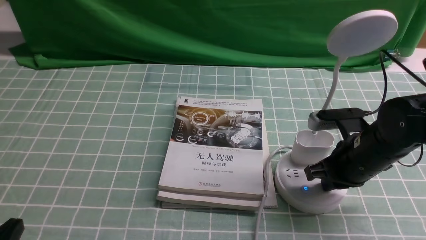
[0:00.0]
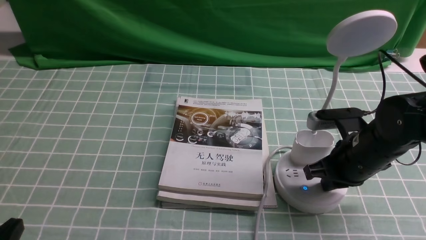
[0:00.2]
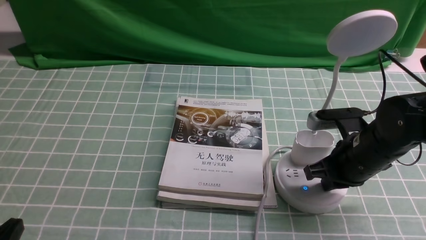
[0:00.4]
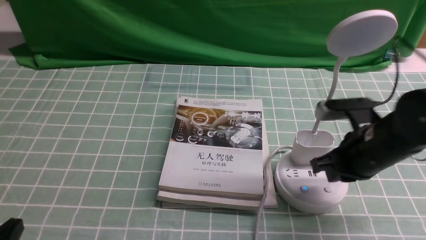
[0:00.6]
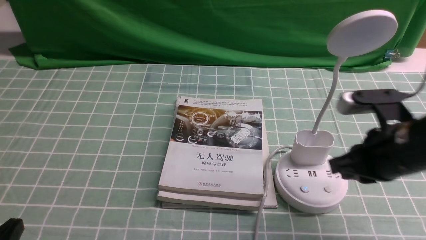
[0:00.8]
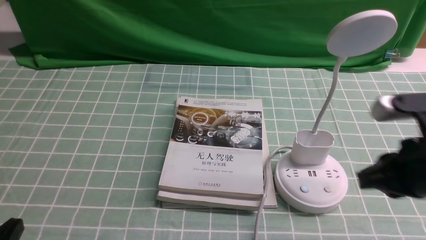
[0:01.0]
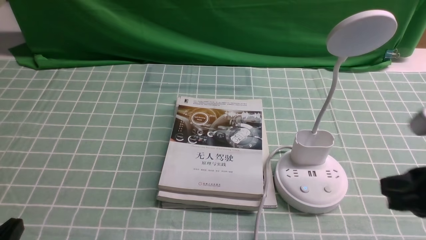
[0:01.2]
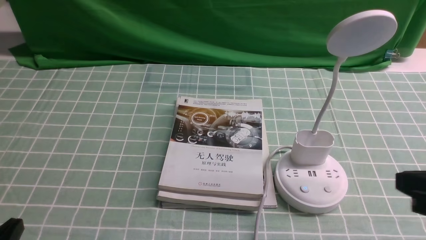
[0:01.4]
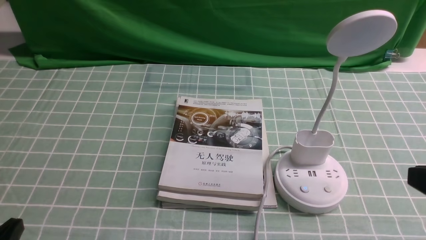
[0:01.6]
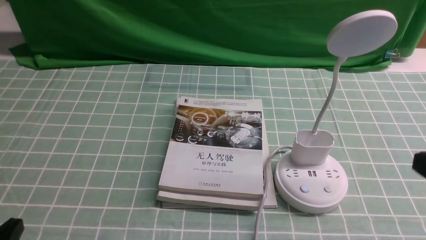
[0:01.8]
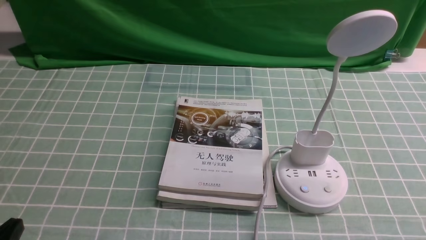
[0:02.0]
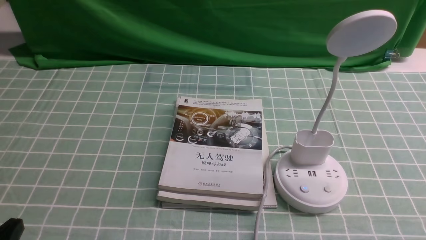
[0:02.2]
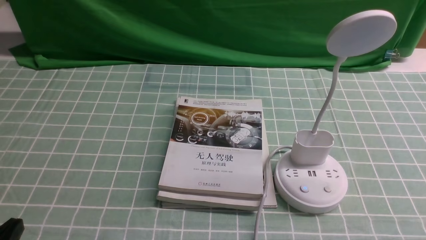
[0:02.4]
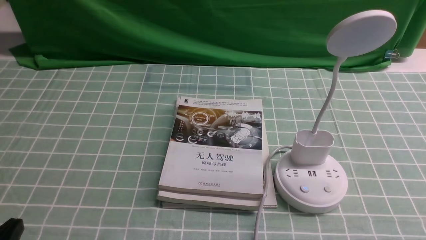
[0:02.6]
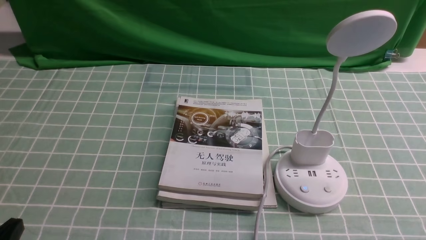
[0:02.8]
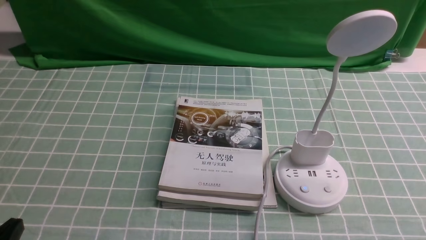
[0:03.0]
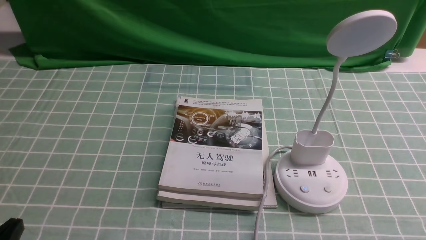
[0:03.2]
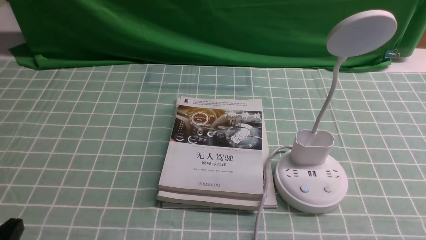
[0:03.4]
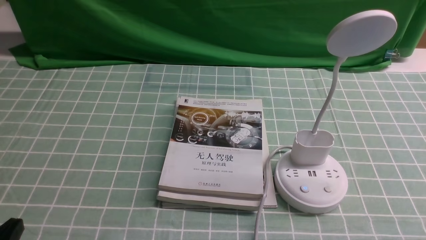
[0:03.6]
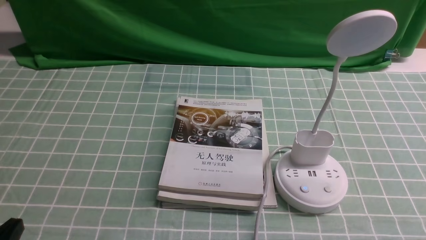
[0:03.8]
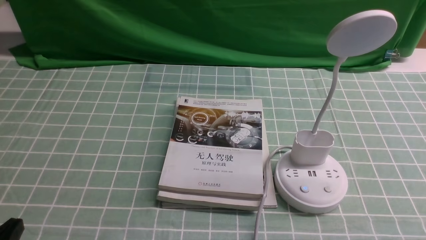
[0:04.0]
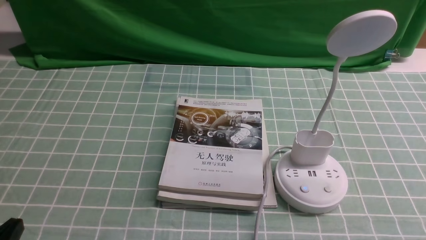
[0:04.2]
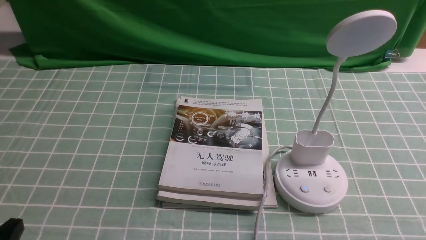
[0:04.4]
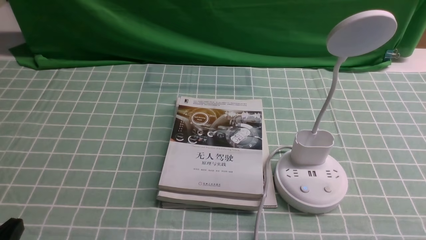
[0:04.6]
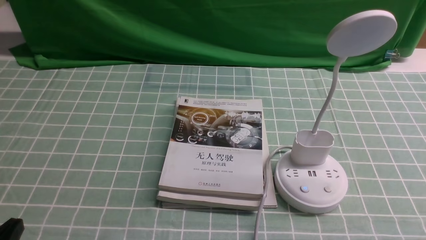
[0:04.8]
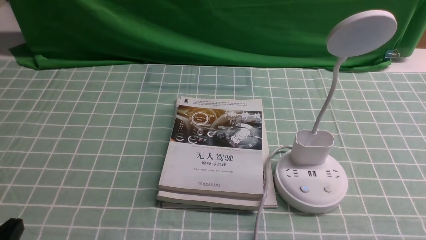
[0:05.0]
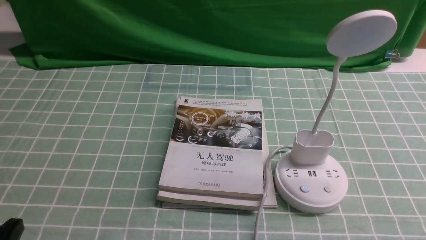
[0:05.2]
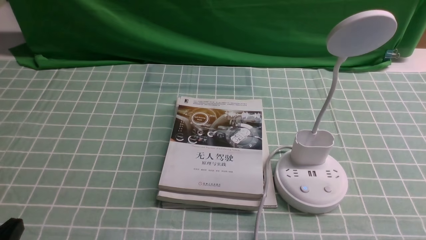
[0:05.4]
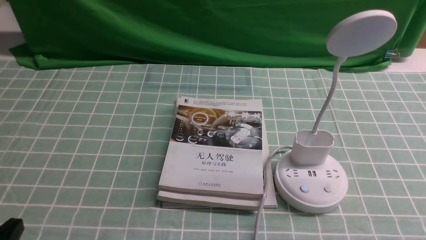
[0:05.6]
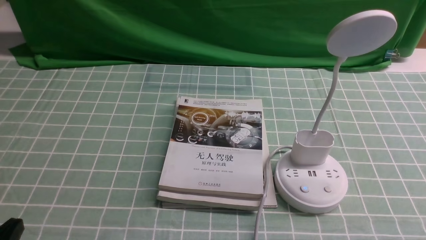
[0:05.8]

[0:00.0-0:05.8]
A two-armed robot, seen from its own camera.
Task of the whole recording: turn off the desk lamp on the blue coffee tablecloth by hand.
0:00.0 to 0:01.4: The right gripper is displaced backward and upward by about 20 cm.
0:01.4 to 0:02.8: The right gripper is displaced downward and backward by about 15 cm.
0:04.4 to 0:05.8: Both grippers stay about where they are.
